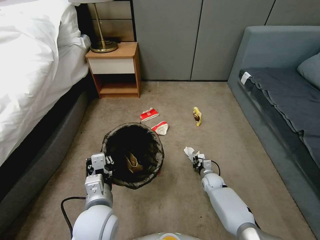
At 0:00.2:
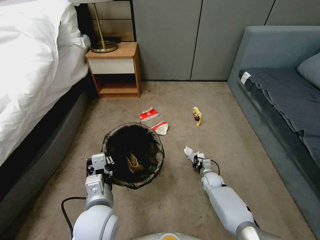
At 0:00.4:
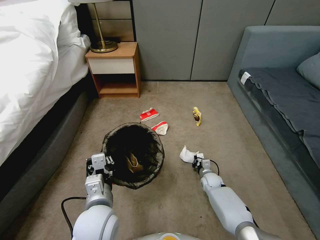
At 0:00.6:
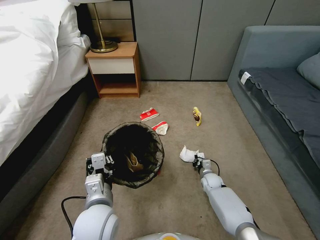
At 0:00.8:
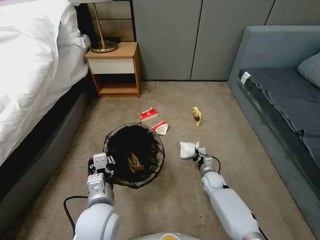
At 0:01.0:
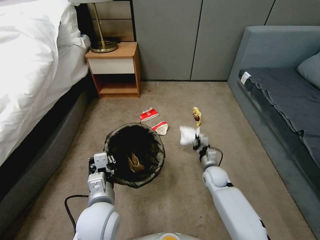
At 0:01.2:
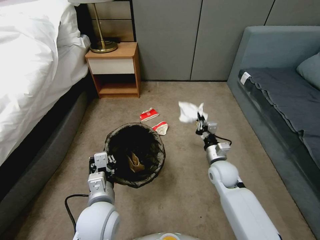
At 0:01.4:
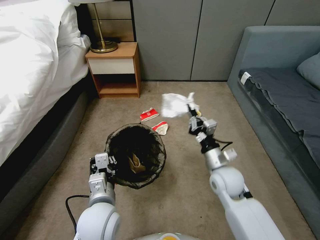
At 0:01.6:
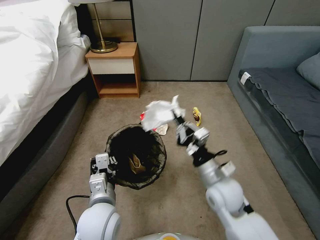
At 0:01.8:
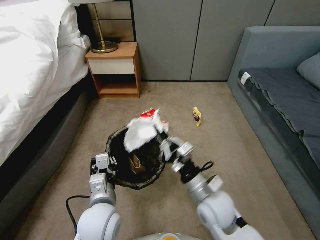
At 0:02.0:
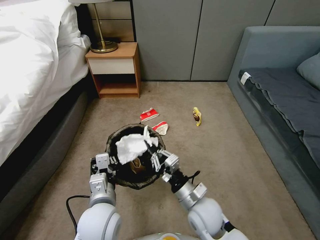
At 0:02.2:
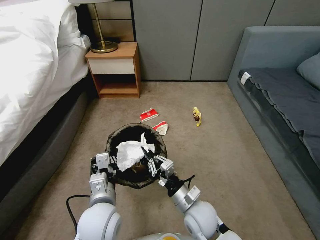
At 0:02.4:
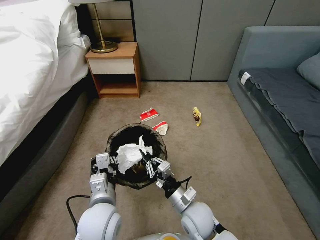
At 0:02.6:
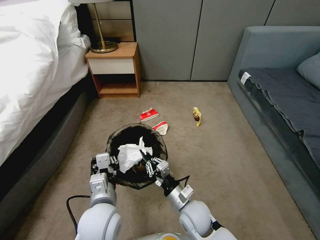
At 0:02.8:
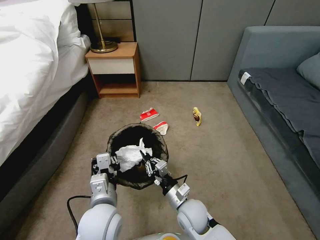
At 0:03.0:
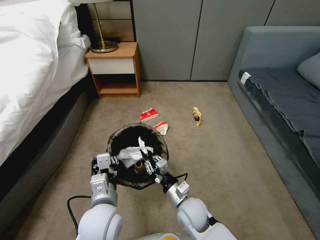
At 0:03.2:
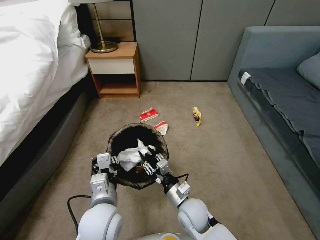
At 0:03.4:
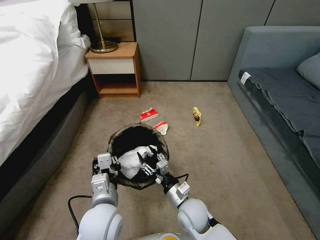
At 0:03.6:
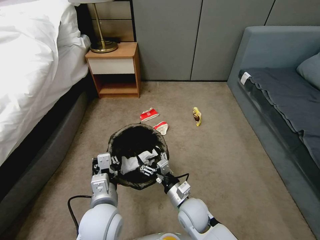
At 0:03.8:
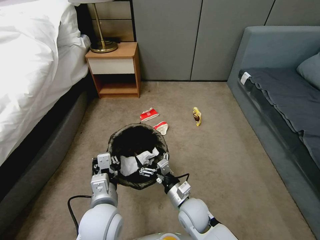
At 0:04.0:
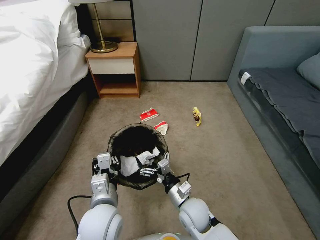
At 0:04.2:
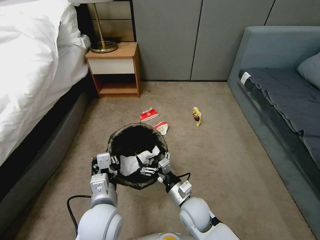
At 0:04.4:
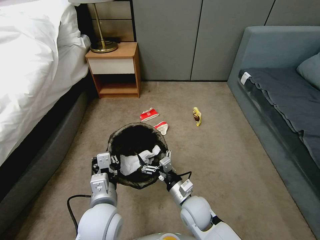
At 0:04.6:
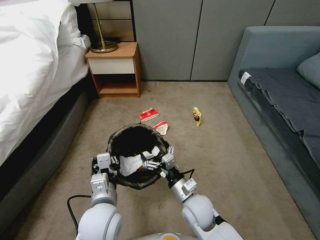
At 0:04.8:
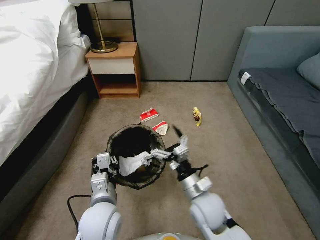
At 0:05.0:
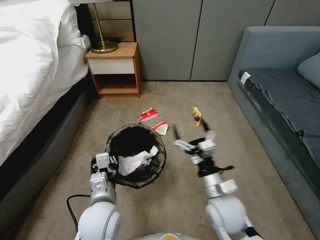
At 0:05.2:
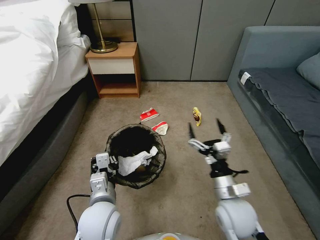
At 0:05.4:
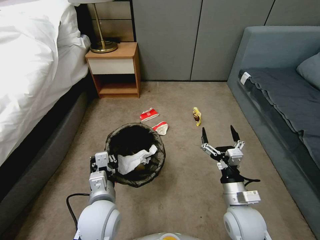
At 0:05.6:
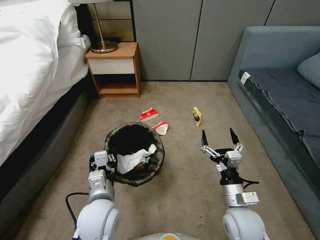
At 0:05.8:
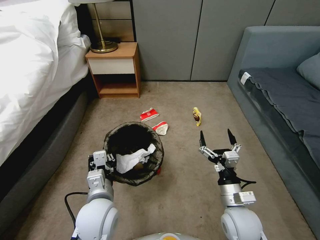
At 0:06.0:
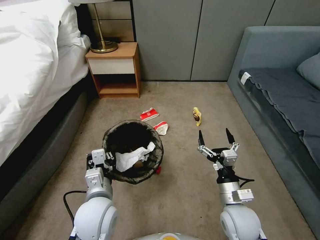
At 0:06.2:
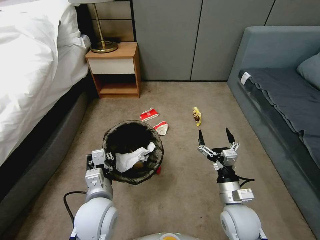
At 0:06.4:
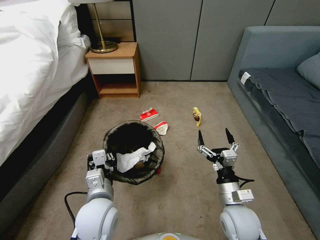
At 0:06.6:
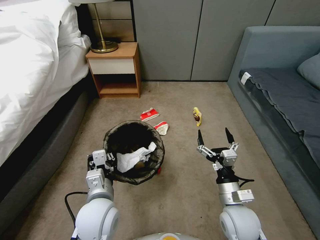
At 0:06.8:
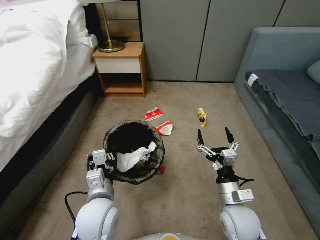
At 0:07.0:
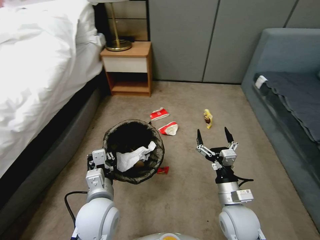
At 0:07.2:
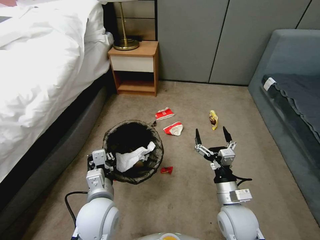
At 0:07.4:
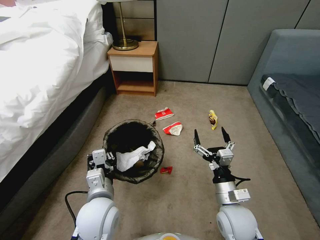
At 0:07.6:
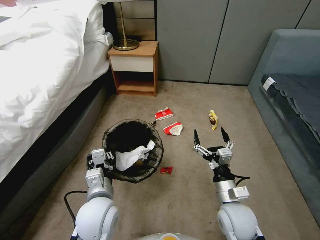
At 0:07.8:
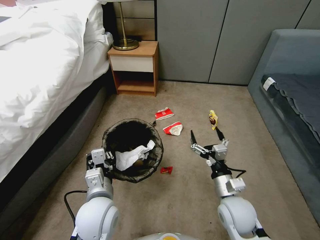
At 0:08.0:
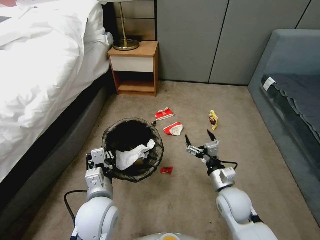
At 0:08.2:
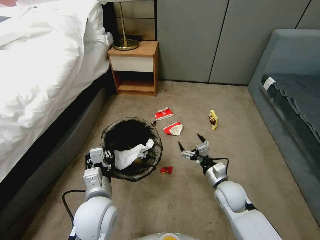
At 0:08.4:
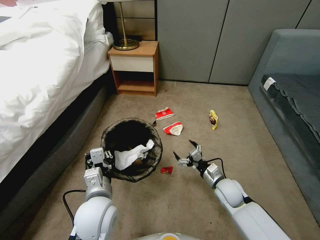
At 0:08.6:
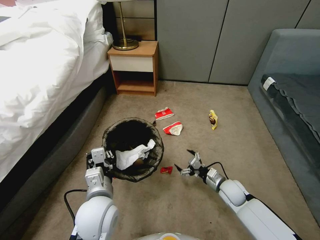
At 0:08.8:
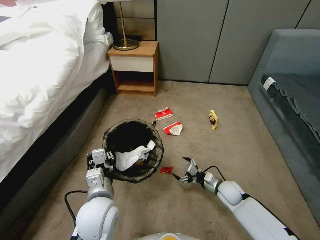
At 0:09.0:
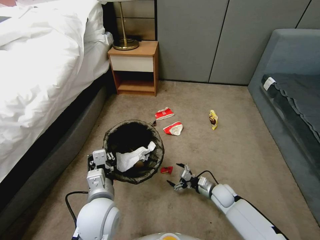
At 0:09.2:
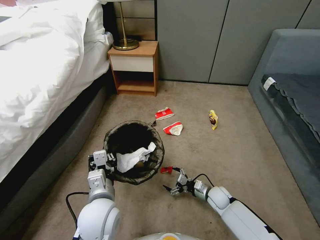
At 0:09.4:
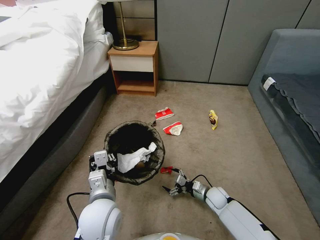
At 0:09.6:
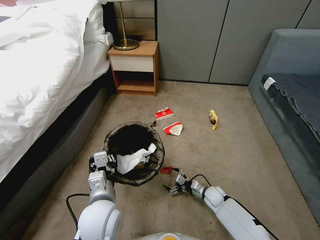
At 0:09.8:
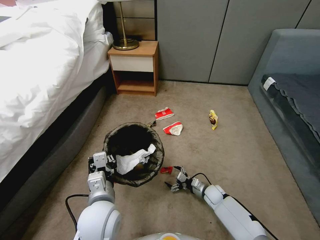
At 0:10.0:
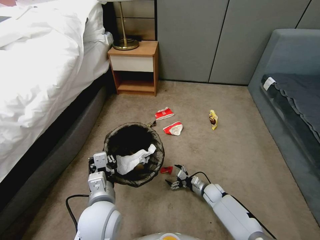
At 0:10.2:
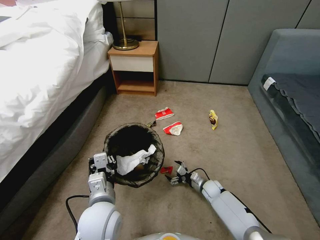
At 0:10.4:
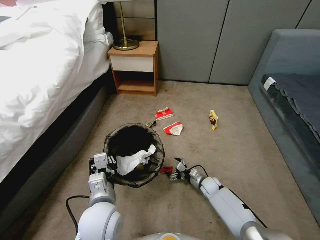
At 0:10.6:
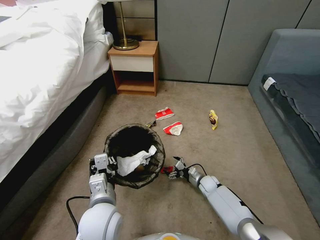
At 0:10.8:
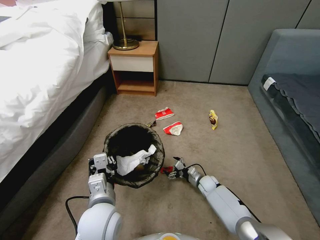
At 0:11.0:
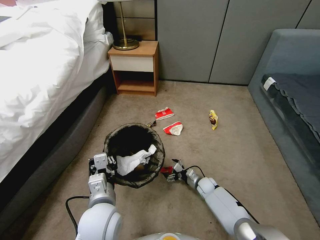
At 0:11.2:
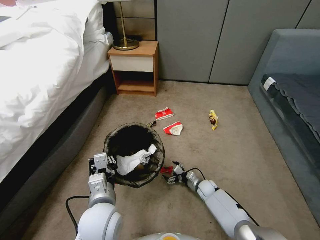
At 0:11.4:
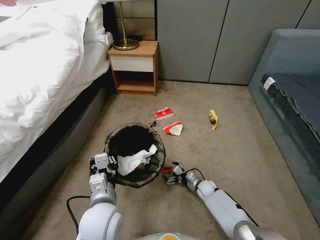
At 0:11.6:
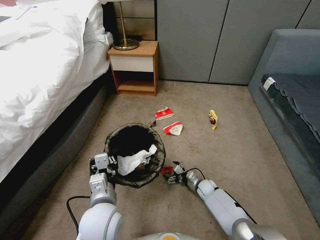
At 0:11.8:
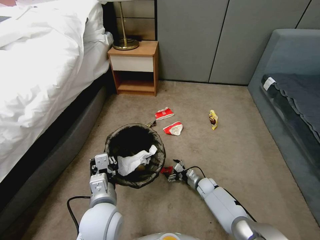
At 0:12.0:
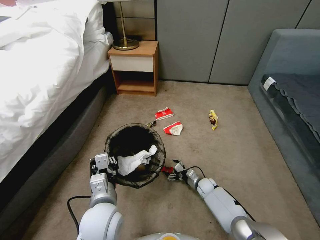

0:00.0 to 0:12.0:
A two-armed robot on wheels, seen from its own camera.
Task of the whole recording: Pick up the trash bin, then pick up the garbage from the floor and place it into the trash bin.
0:00.0 to 0:01.6: The right gripper shifts some 30 cm upward and backward.
0:01.6 to 0:03.0: The right gripper goes roughly 15 cm downward and to the left.
0:03.0 to 0:04.4: The right gripper opens up.
0:04.4 to 0:06.0: The right gripper shifts roughly 15 cm to the right and upward.
0:07.6 to 0:09.0: The right gripper moves downward and forward, some 20 cm.
0:09.0 to 0:10.4: The right gripper goes some 10 cm downward and forward.
0:10.4 to 0:12.0: The grippers make only small movements.

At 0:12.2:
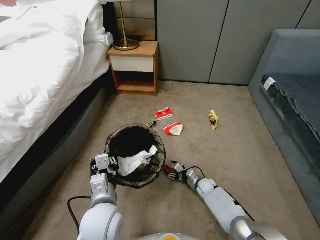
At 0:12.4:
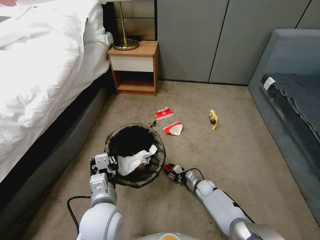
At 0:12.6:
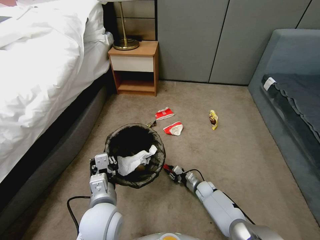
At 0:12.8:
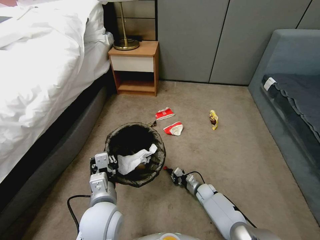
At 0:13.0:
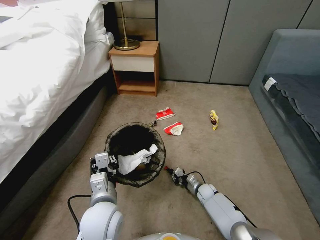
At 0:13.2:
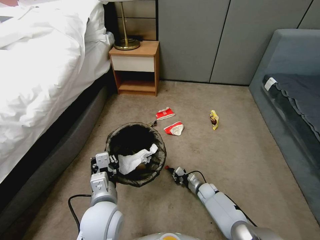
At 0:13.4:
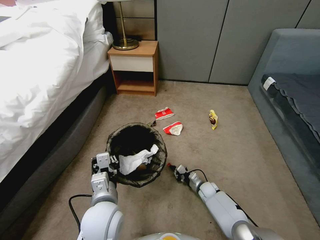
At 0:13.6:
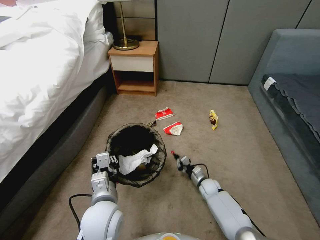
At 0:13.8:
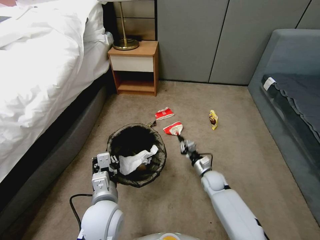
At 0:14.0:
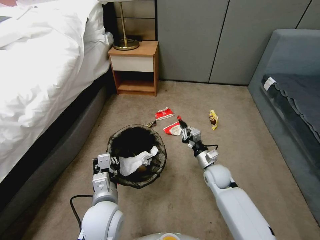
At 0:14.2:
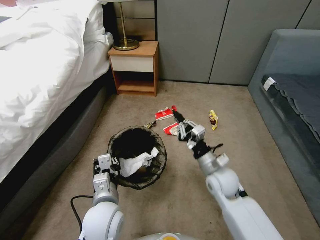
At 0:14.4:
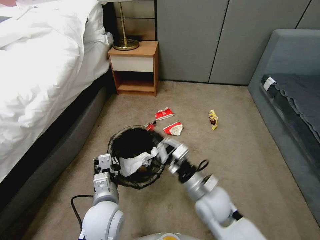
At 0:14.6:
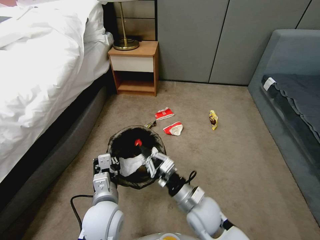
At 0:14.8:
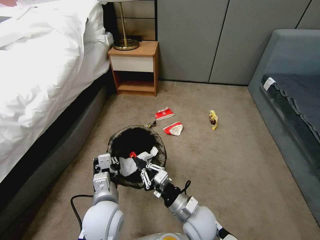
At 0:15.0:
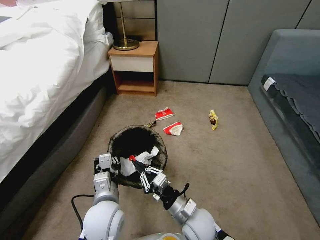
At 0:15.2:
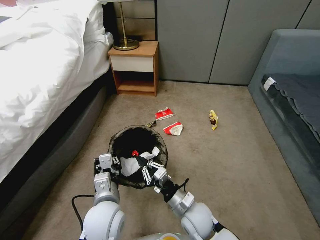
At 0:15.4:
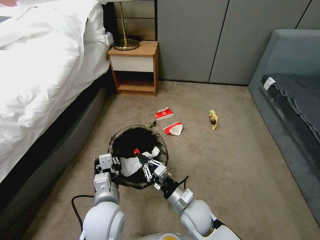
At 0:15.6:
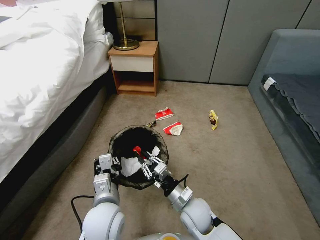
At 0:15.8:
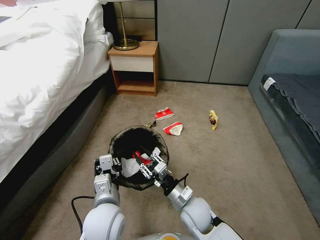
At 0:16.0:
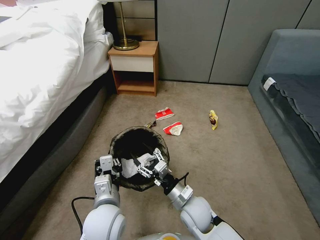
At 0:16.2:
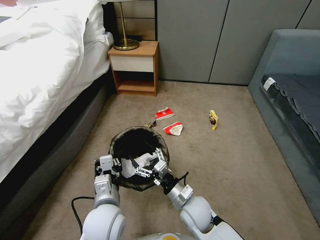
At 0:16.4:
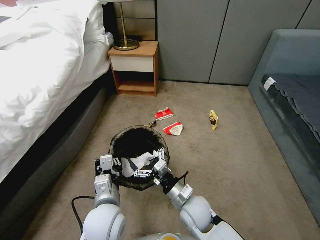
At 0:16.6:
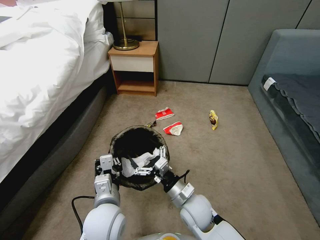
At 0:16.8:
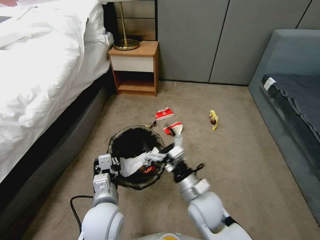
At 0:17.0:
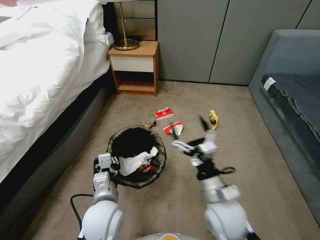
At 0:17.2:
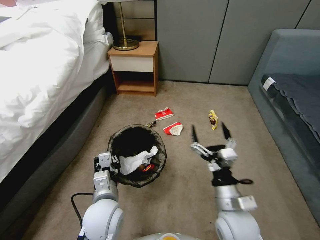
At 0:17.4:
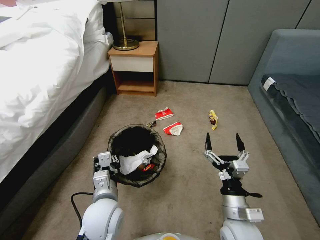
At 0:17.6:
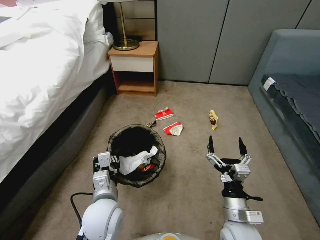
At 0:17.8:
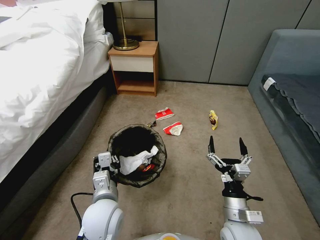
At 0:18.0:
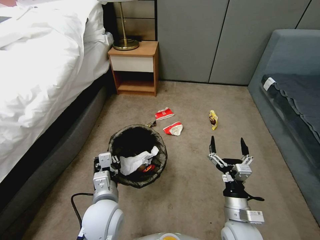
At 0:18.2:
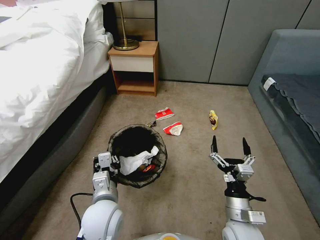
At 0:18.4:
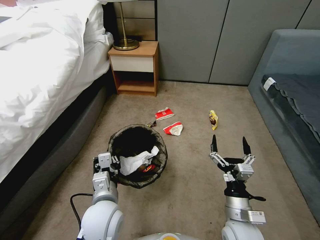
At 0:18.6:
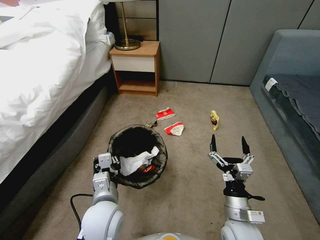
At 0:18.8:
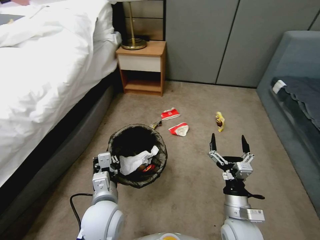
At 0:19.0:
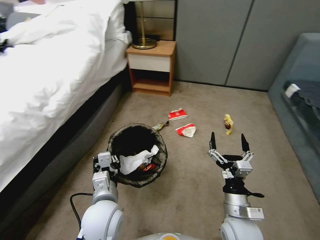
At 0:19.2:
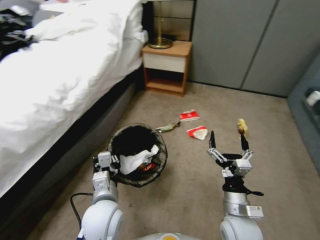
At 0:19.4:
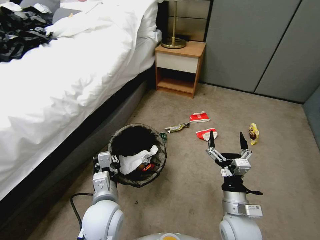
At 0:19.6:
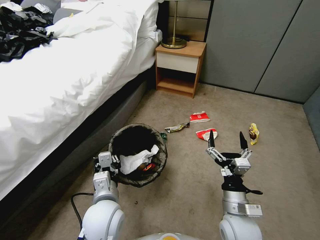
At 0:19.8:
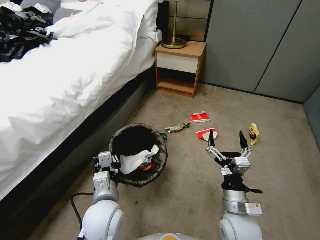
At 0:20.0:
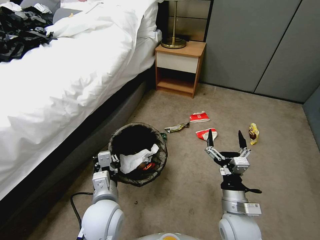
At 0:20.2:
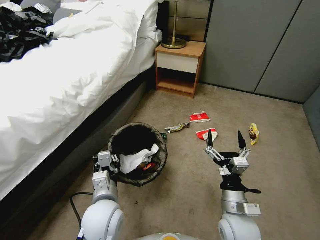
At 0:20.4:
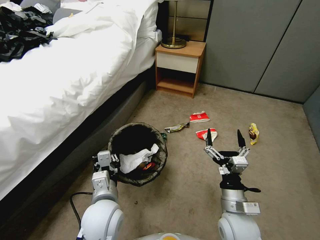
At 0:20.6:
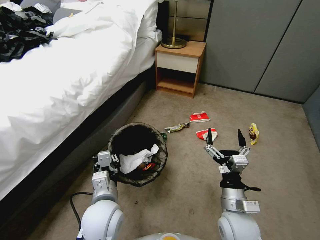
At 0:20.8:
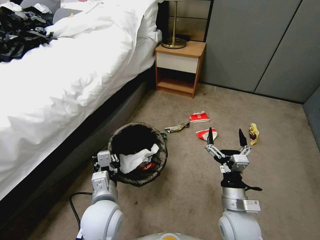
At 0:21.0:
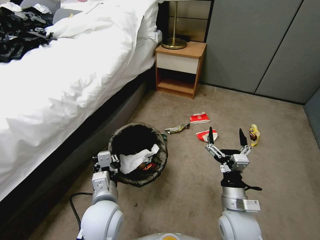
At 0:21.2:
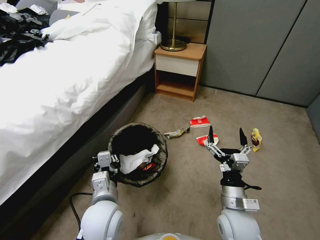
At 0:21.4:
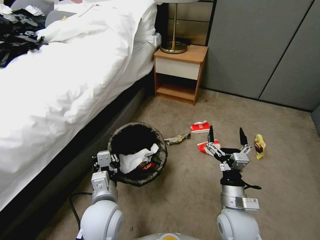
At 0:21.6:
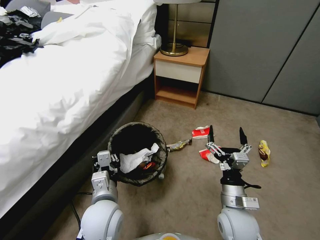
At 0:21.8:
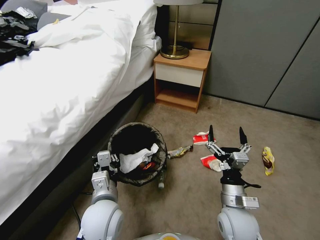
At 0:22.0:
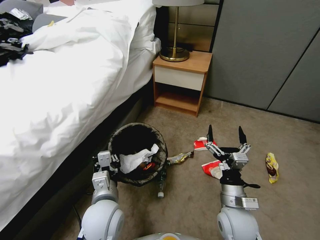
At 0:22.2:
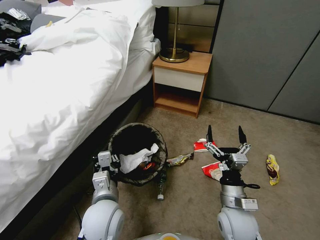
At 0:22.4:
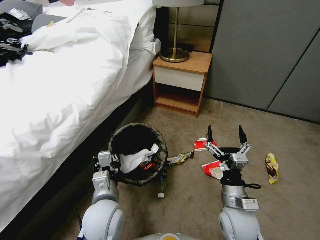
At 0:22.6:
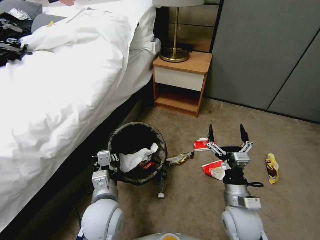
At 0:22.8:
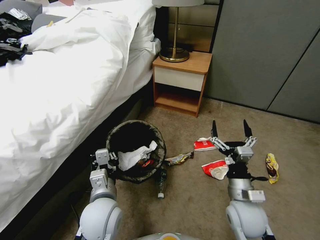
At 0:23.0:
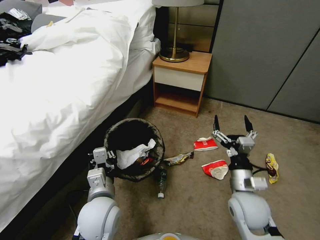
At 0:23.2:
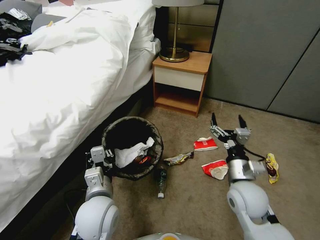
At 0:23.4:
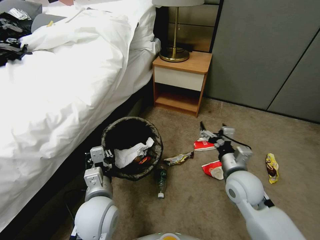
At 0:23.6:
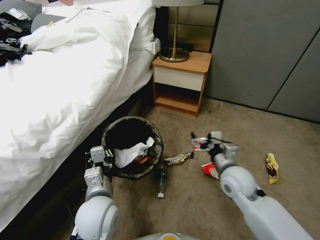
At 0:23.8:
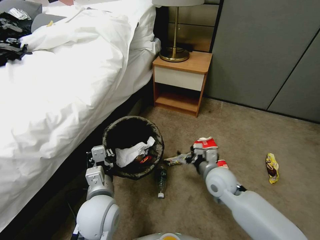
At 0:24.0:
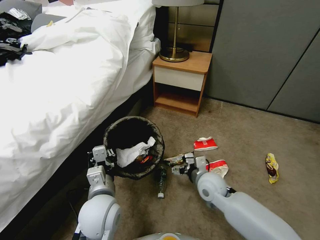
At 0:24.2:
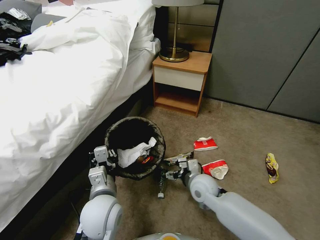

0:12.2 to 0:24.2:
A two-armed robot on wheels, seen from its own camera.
Task of the whole recording: Pick up the trash bin, then pick up the garbage from the floor and place it into the trash bin.
0:12.2 to 0:13.8: The right gripper goes approximately 10 cm upward, and closes up.
0:13.8 to 0:15.2: The right gripper is displaced backward, to the left and upward by about 20 cm.
0:15.2 to 0:16.6: The right gripper opens.
0:16.6 to 0:18.2: The right gripper is displaced to the right and backward by approximately 15 cm.
0:19.8 to 0:21.2: Neither gripper changes place.
0:22.6 to 0:24.2: The right gripper travels forward and to the left by some 15 cm.
